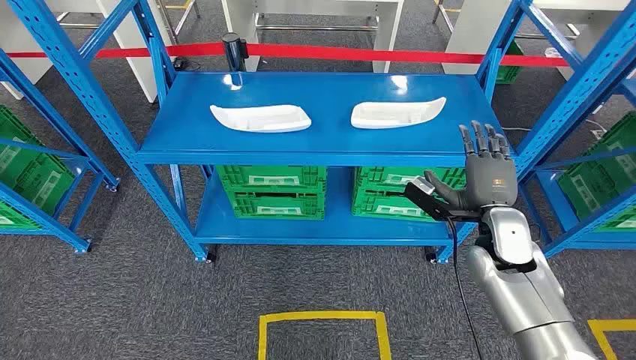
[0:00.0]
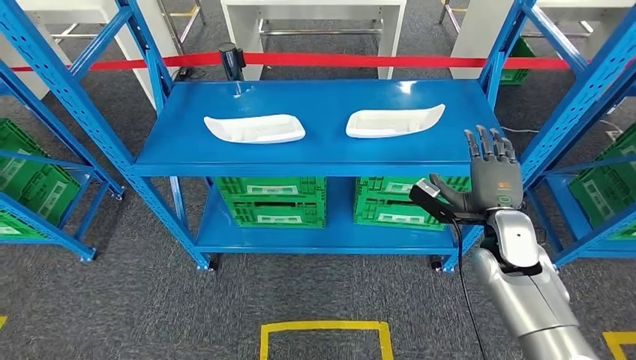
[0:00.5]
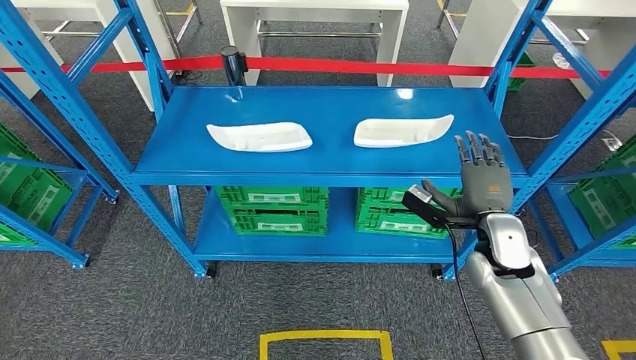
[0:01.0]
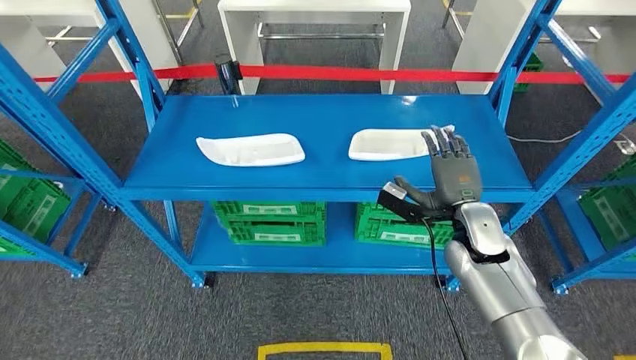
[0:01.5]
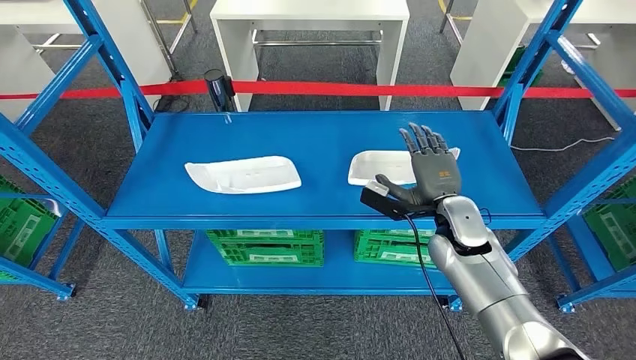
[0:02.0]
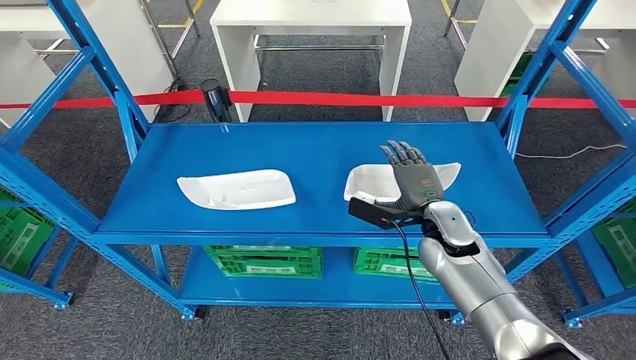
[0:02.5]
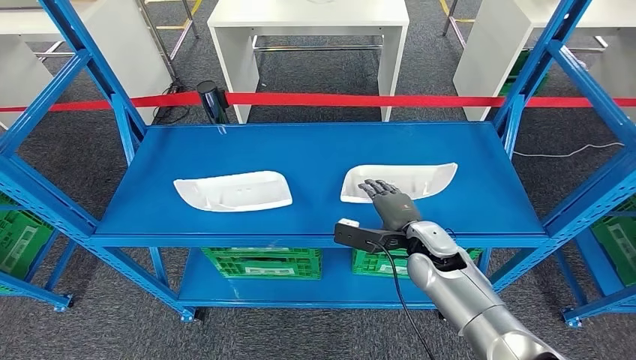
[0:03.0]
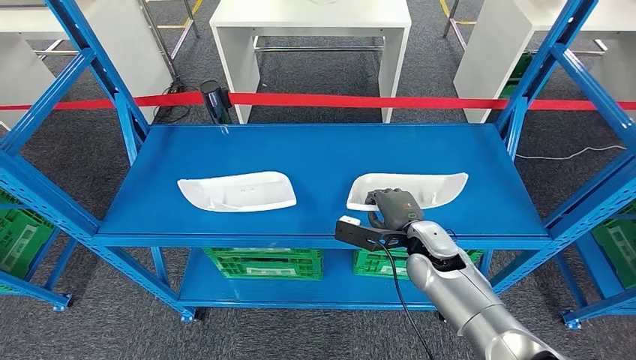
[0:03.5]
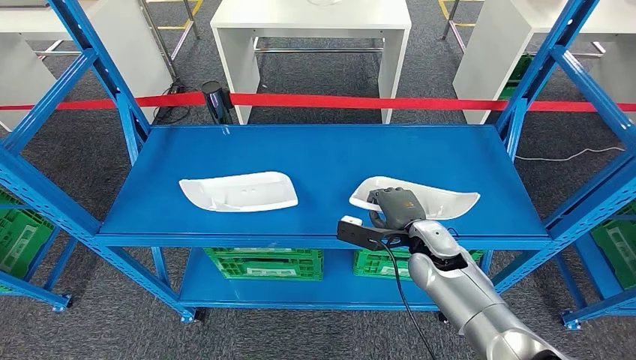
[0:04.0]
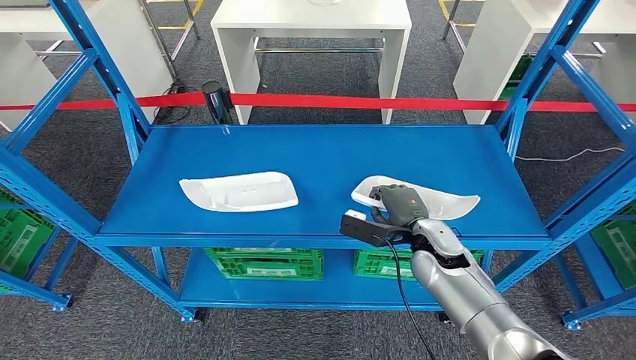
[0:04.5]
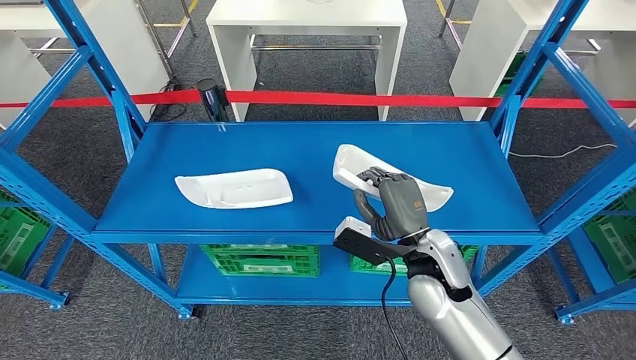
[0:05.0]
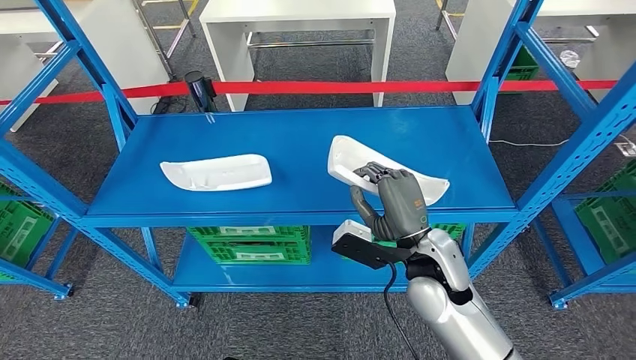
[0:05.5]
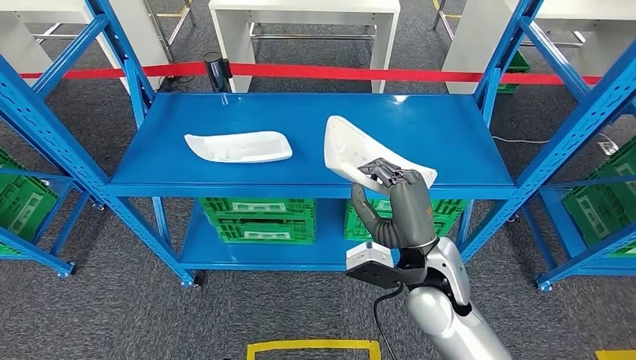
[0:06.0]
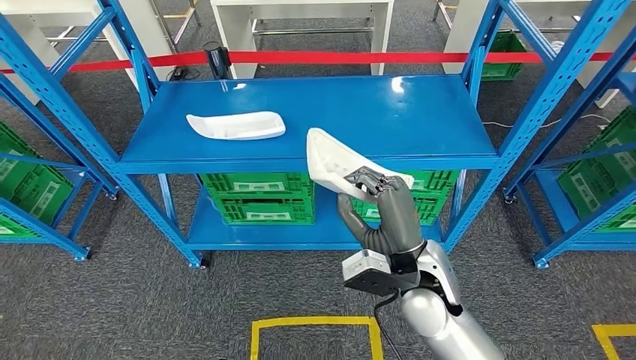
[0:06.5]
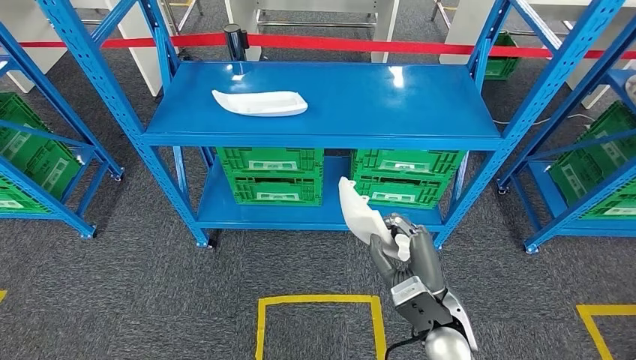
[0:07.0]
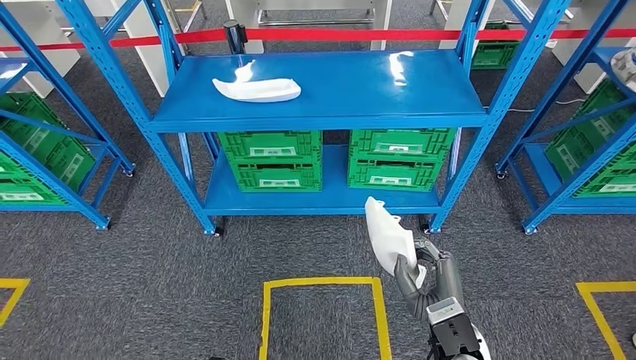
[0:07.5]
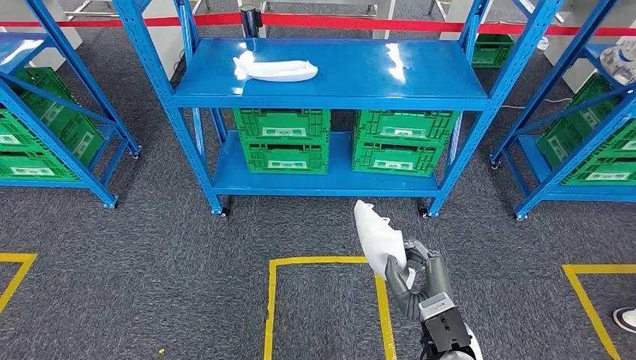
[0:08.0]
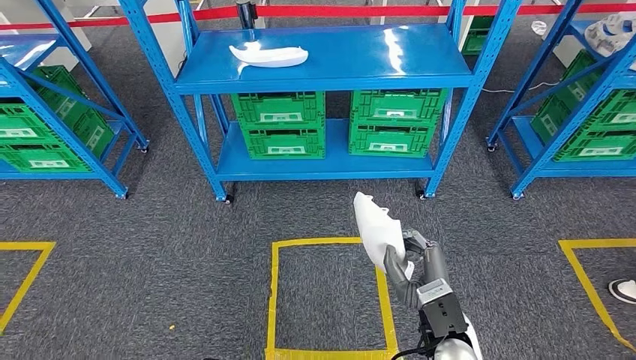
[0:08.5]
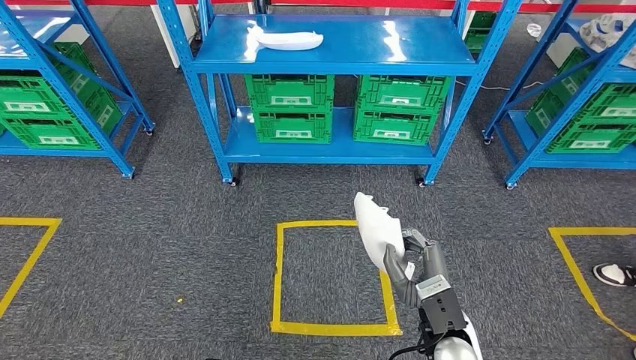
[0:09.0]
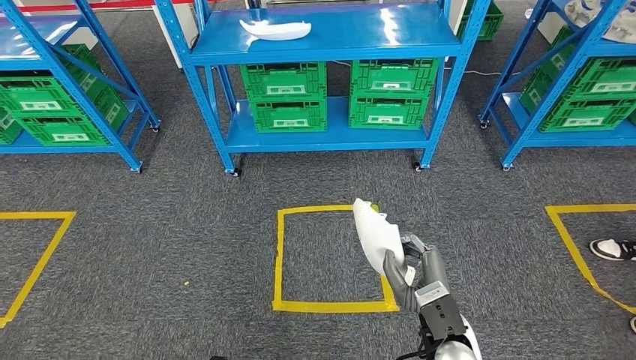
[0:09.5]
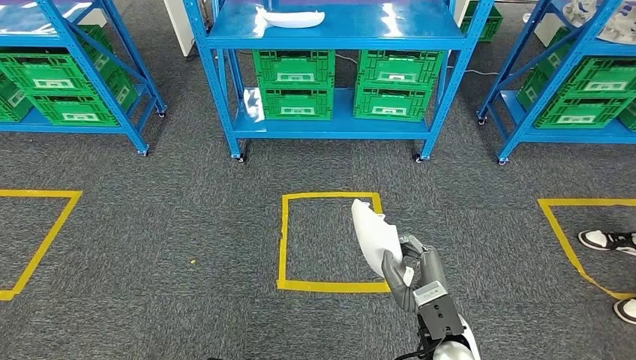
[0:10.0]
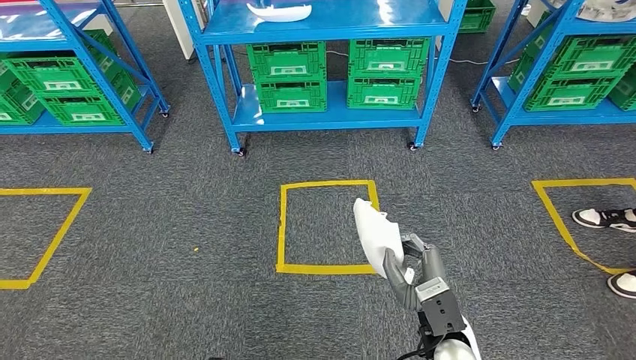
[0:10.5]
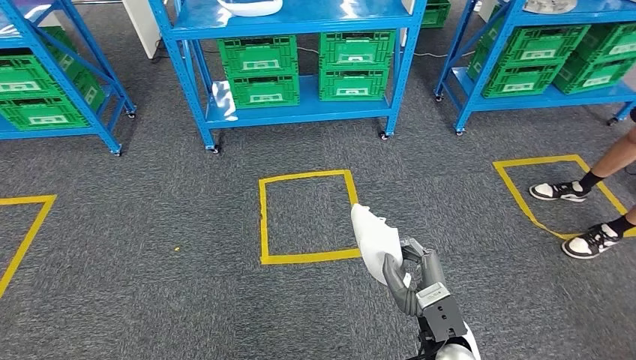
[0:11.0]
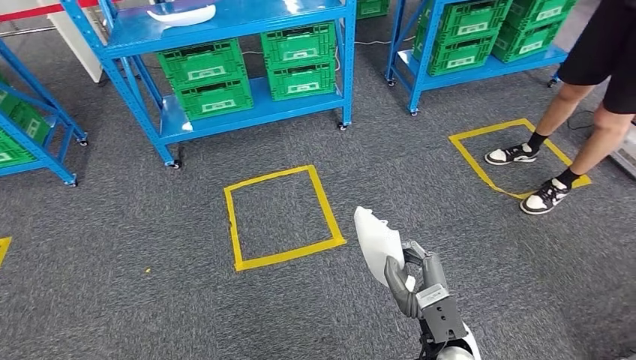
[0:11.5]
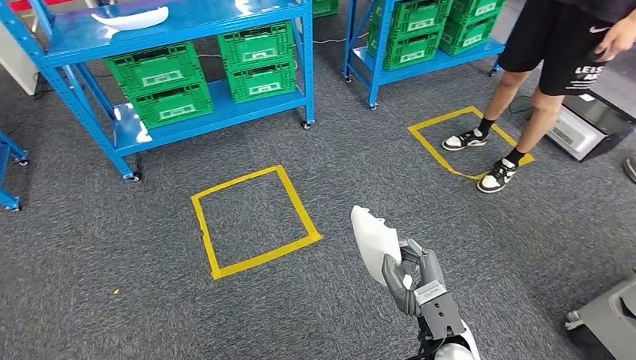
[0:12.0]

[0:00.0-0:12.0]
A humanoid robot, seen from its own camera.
Step, 0:00.0 to 0:05.5: Pick up the small component from the shelf.

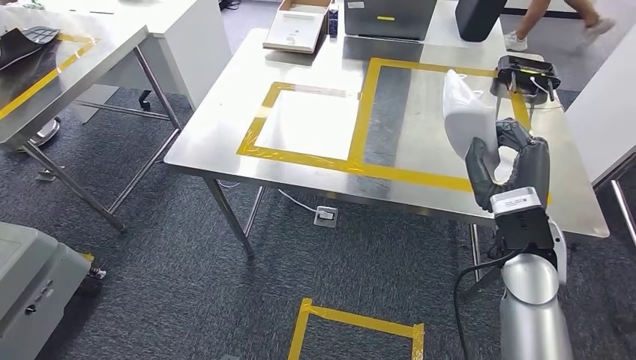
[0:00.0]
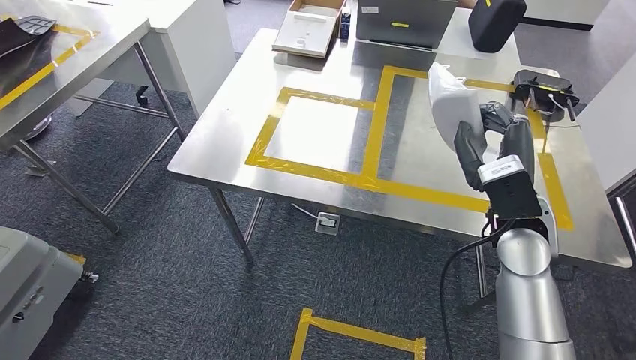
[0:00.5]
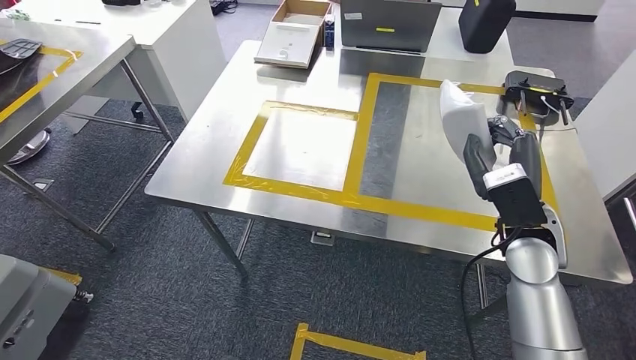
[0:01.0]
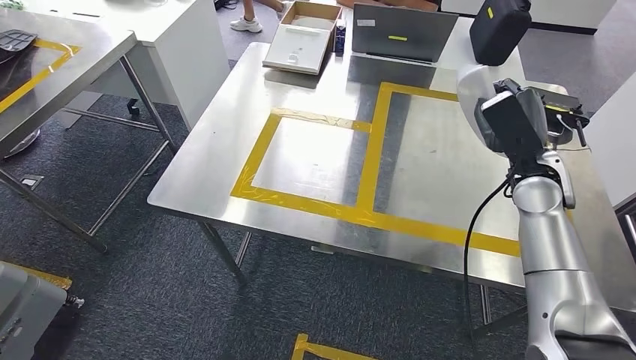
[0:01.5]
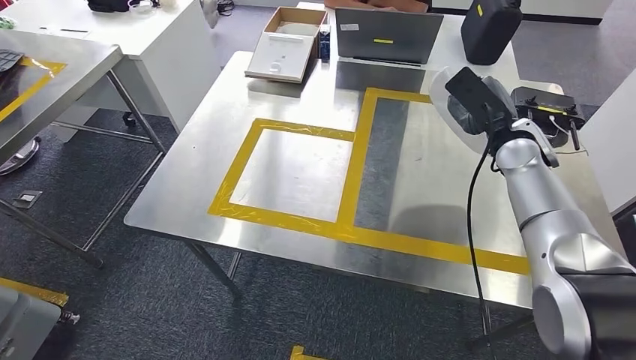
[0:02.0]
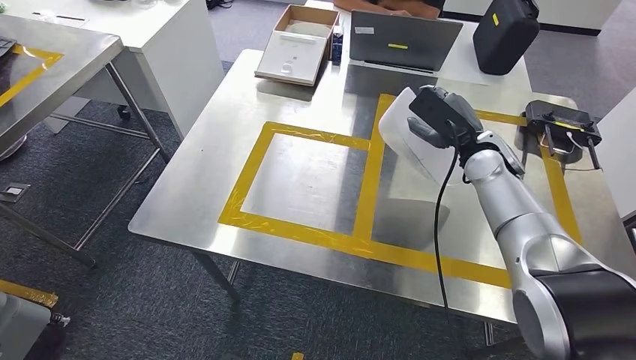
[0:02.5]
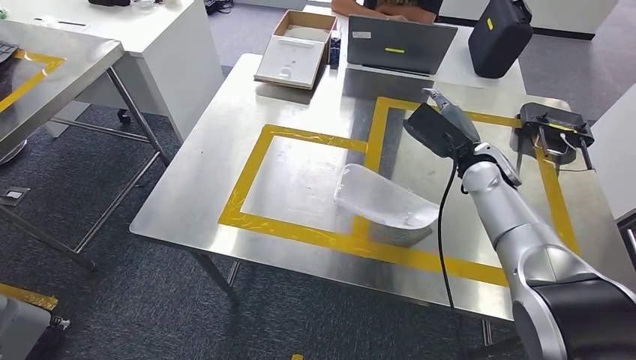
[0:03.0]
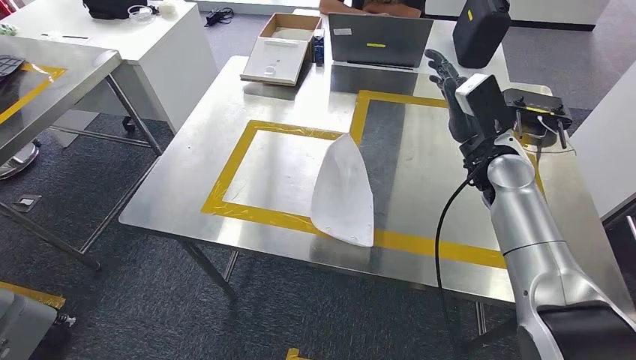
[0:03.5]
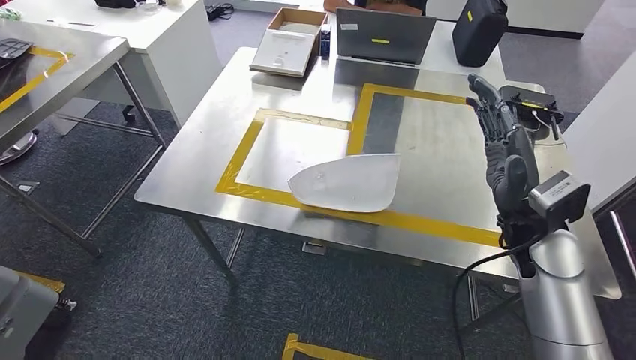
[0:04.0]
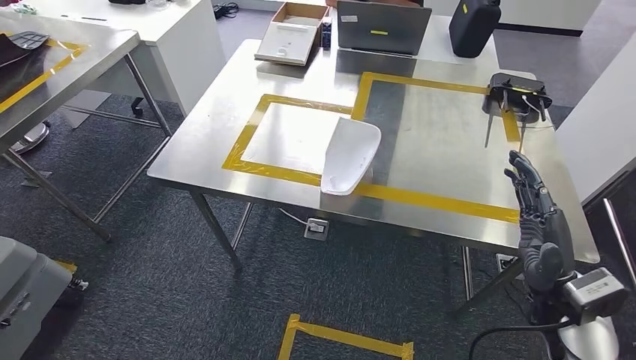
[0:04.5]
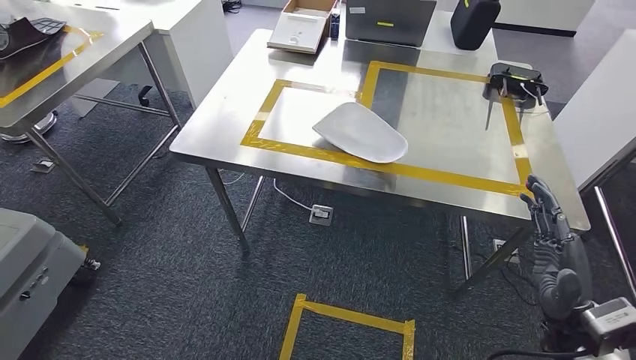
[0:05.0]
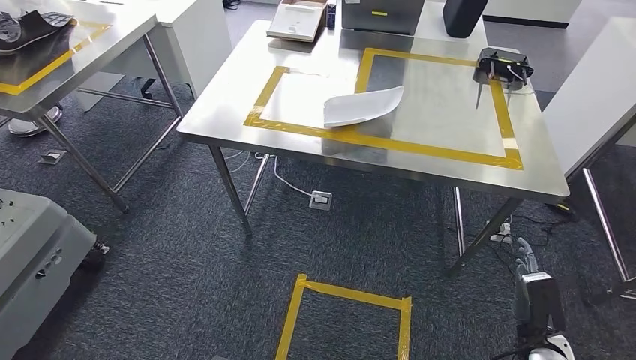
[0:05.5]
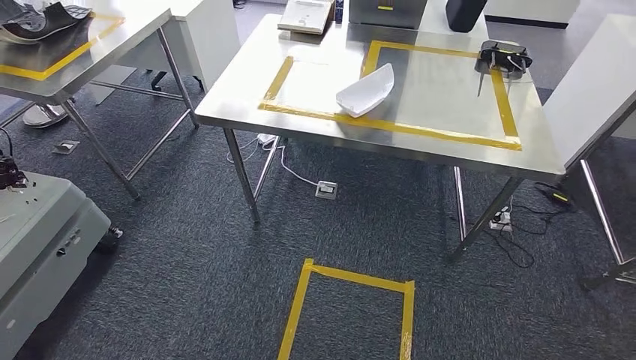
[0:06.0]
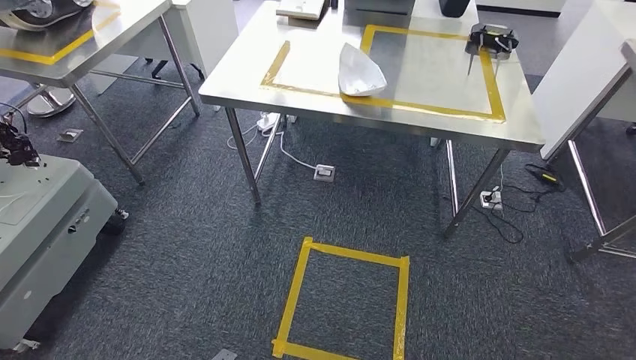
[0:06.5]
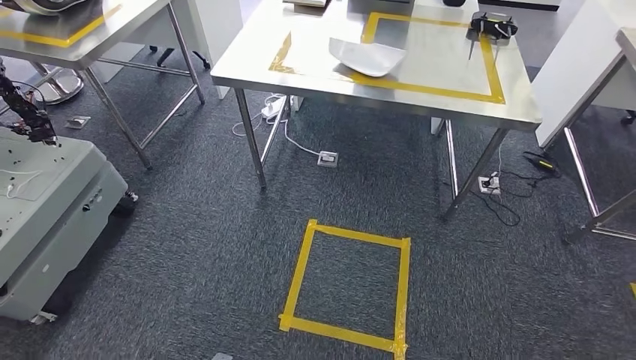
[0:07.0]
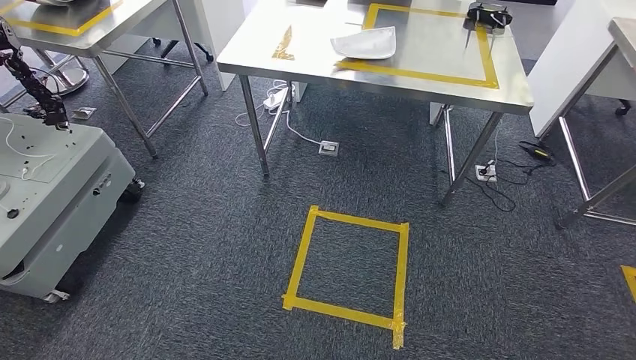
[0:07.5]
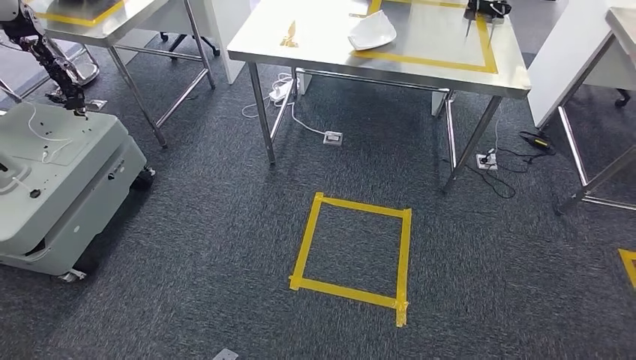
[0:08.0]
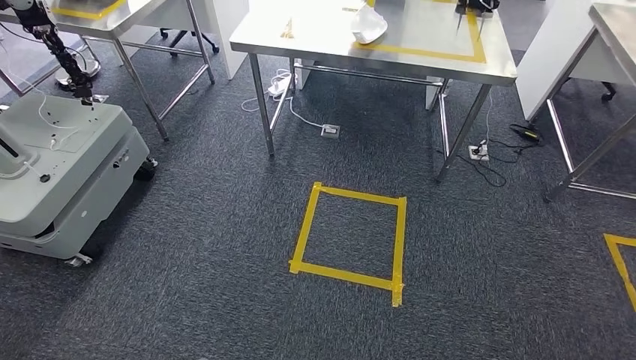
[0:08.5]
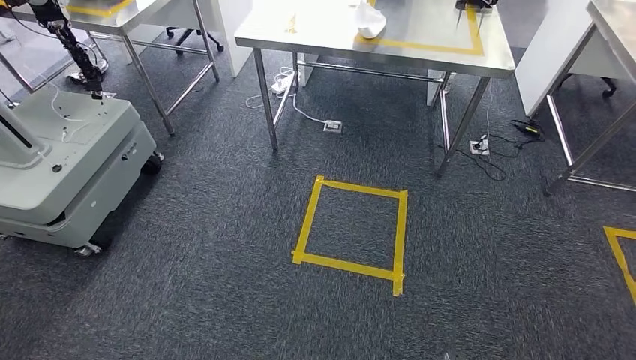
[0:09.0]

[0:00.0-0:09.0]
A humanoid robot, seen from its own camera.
Step, 0:02.0 to 0:03.5: Insert the small component into the corresponding slot on the workbench.
Step, 0:04.0 to 0:09.0: Return to the initial position at the workbench.
